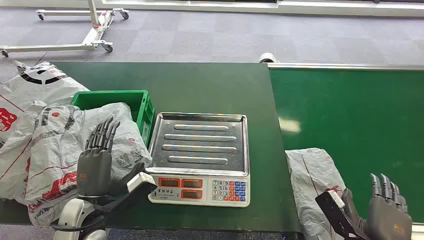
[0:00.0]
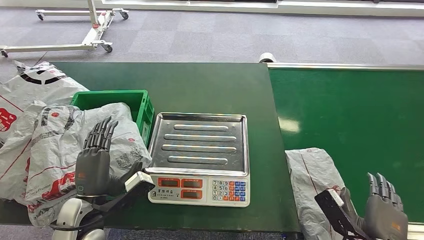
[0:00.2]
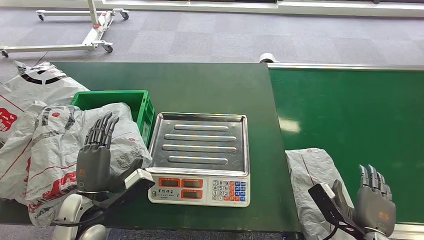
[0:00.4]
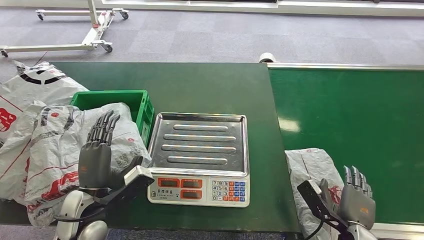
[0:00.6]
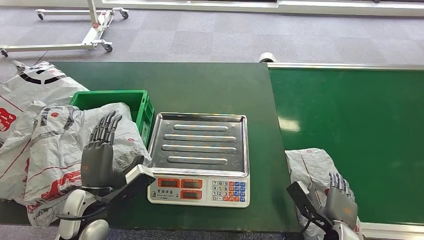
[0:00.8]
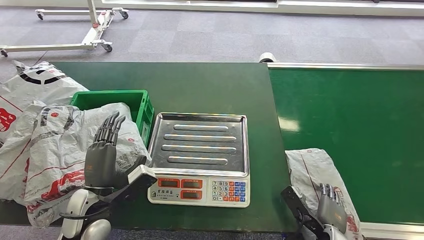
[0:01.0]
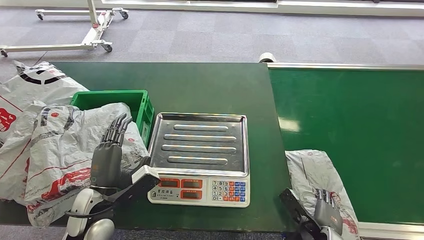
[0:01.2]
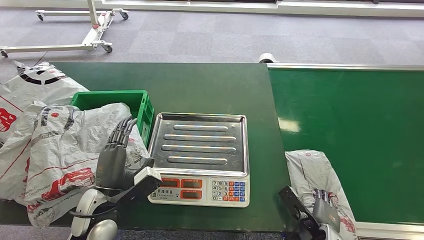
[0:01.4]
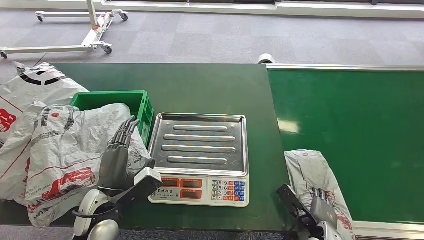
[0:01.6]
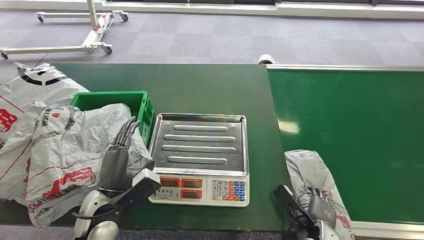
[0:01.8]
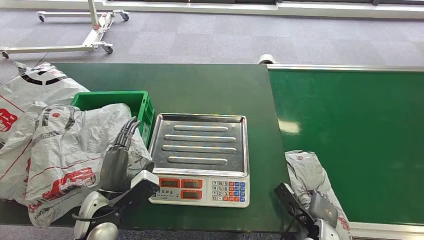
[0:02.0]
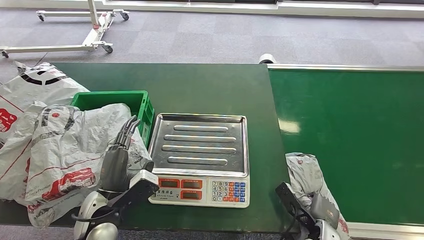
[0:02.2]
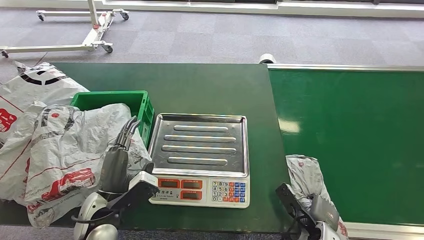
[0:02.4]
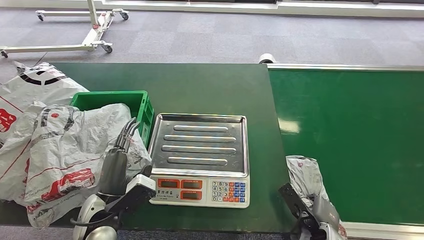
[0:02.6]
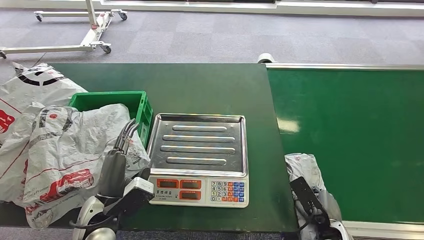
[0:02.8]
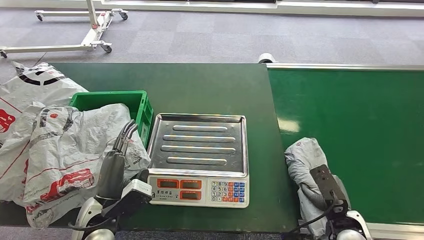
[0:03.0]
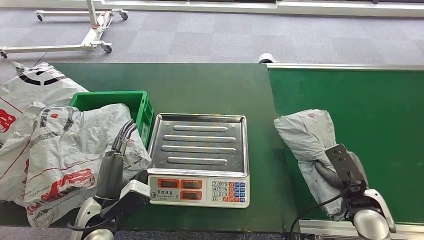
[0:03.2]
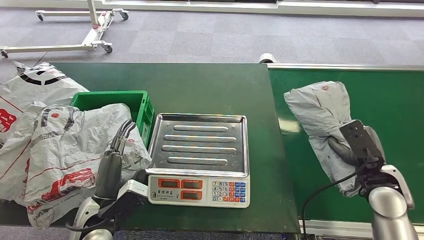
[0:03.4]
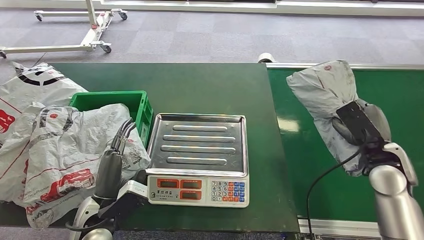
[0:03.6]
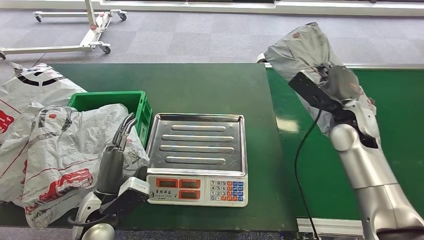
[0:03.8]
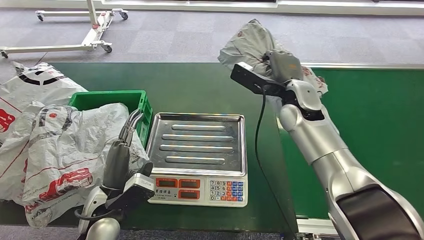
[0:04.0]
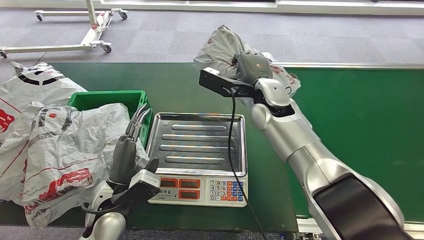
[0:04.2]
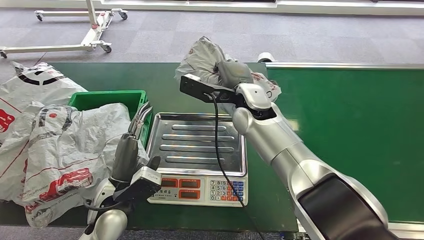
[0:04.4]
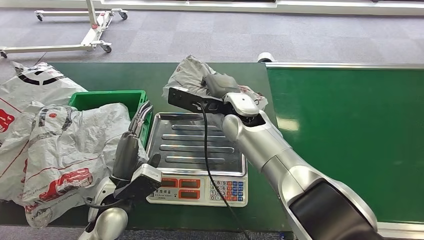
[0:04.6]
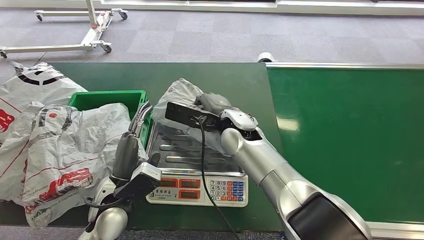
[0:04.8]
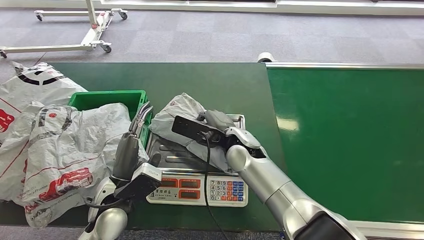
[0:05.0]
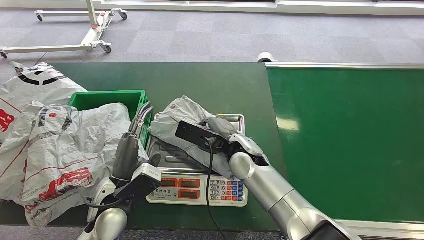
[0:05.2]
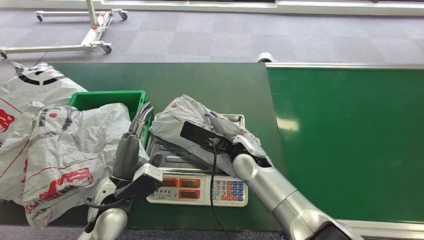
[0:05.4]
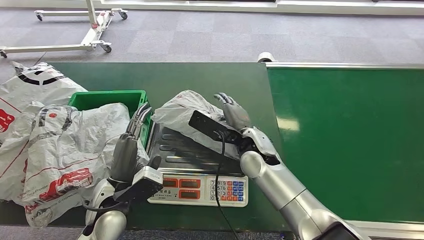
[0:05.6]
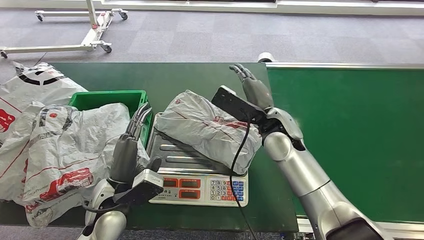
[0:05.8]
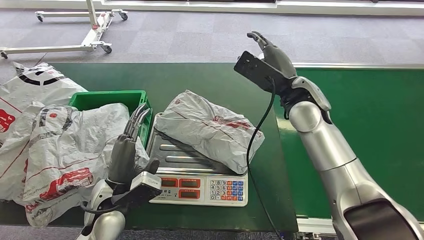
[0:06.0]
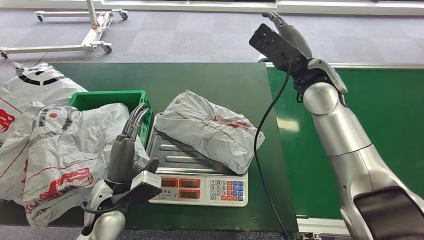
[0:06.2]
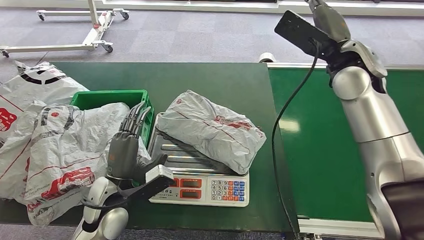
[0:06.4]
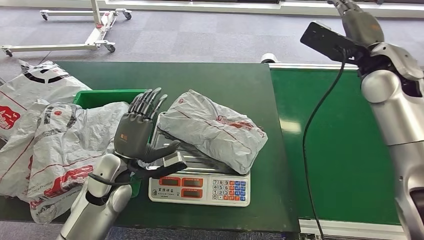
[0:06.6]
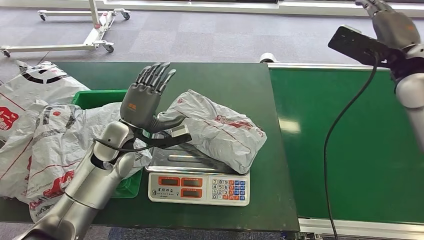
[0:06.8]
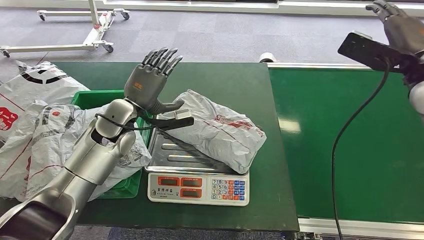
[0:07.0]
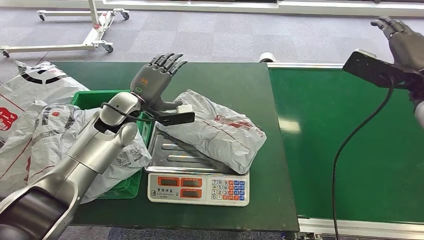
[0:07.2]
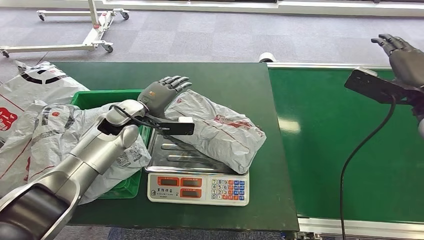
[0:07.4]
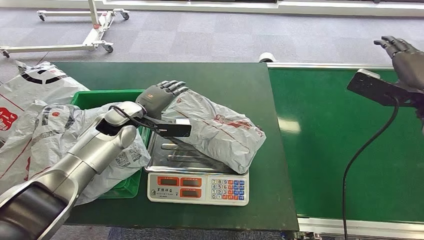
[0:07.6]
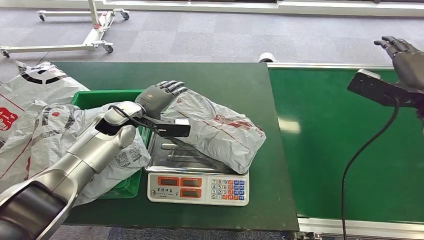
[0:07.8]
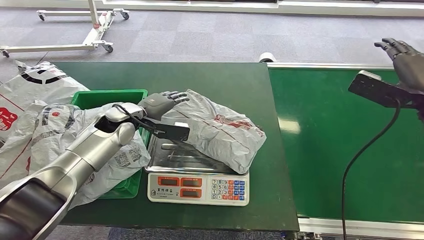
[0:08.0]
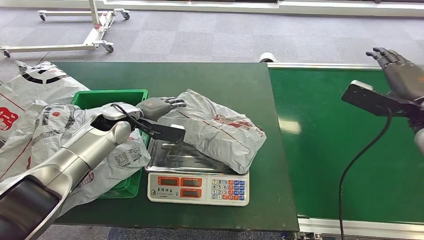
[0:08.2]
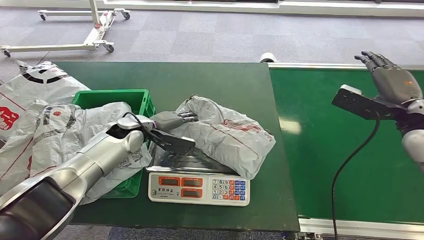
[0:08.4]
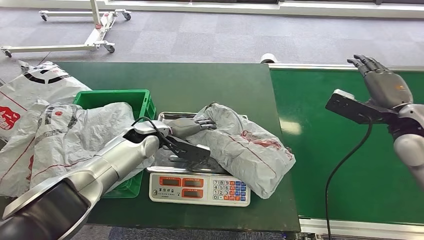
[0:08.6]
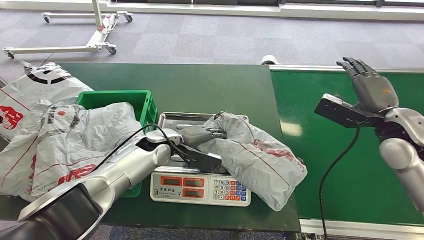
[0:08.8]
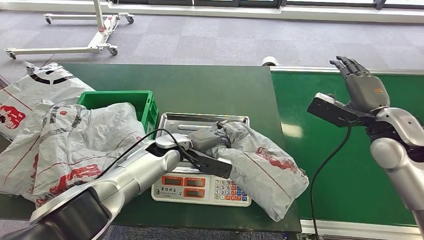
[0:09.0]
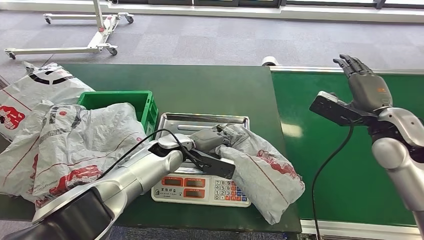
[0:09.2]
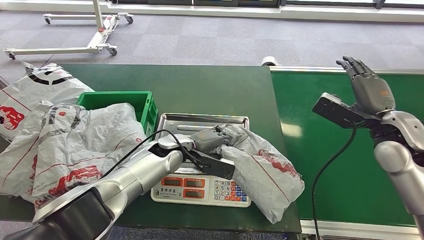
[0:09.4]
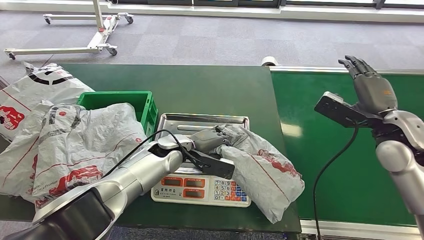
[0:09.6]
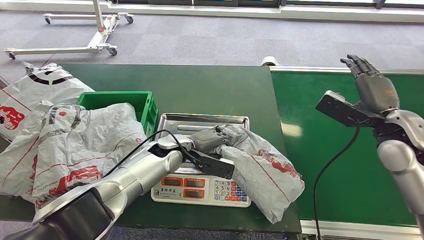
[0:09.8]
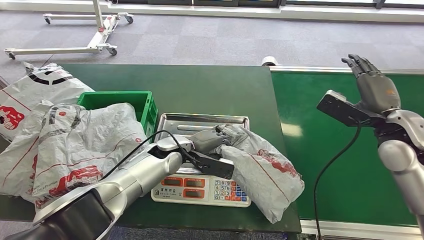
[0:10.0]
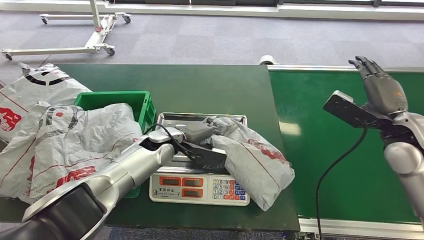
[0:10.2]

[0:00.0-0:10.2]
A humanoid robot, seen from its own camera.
Step, 0:00.0 to 0:03.2: Pick up the package from the conveyor belt.
Step, 0:03.6 to 0:05.8: Place the package onto the inbound machine.
0:01.4 to 0:03.0: The right hand is displaced upward by some 5 cm.
0:04.4 to 0:05.8: The right hand goes roughly 5 cm to the right.
0:08.8 to 0:10.2: The hands make only small movements.

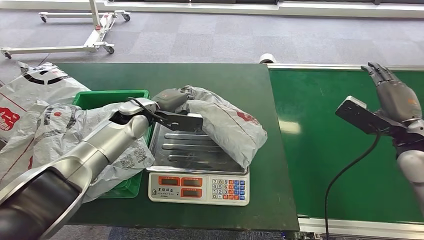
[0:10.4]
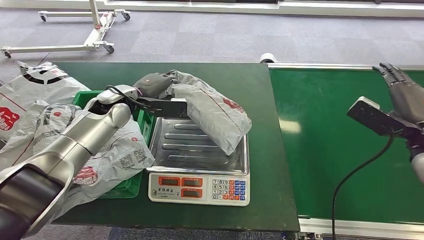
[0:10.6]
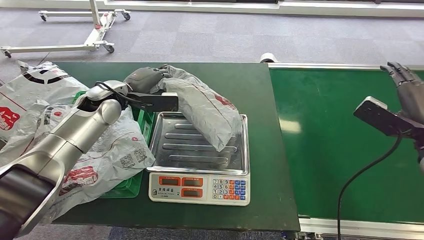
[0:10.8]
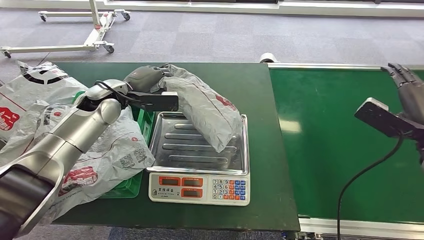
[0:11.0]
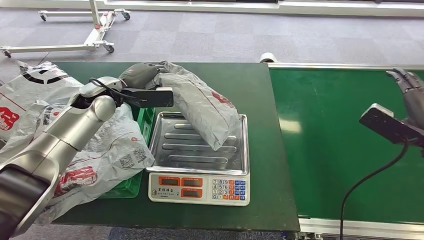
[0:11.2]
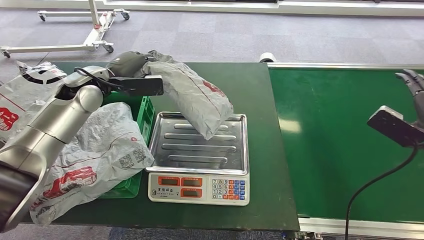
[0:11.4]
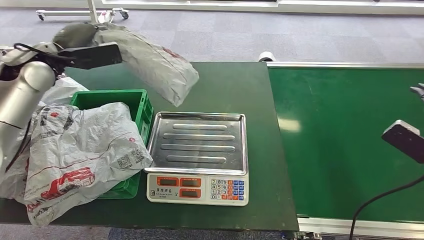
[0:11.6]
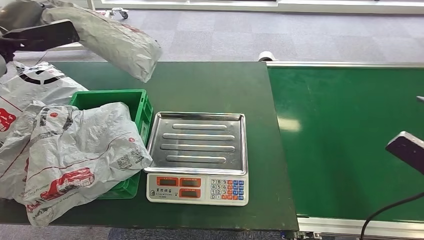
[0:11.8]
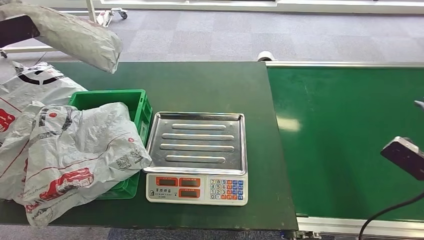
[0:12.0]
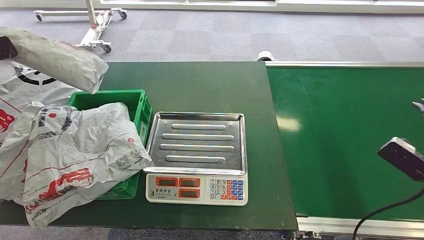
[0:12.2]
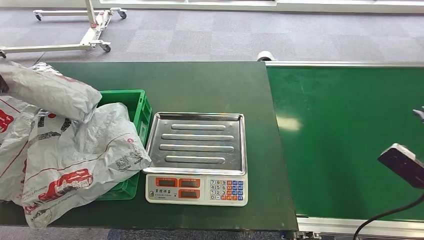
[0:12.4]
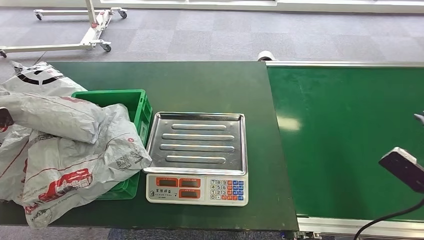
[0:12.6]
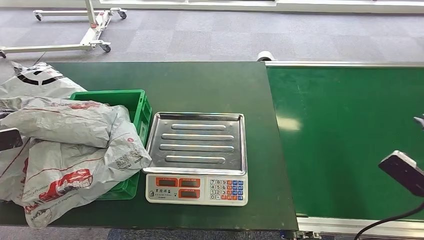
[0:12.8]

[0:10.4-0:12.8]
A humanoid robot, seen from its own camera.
Step, 0:11.0 to 0:12.8: Place the package into the parcel locker.

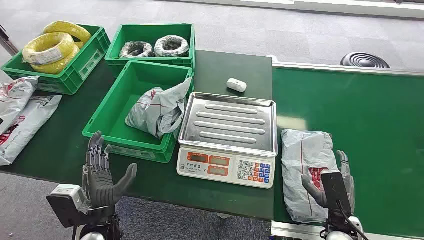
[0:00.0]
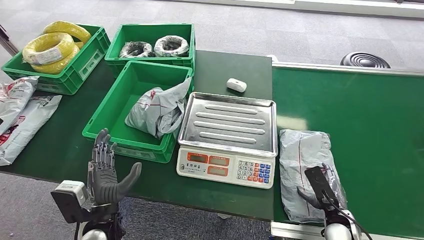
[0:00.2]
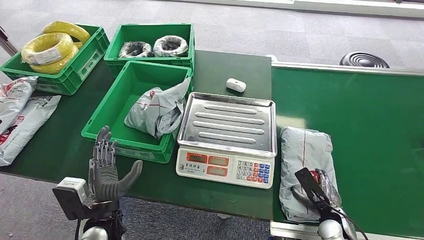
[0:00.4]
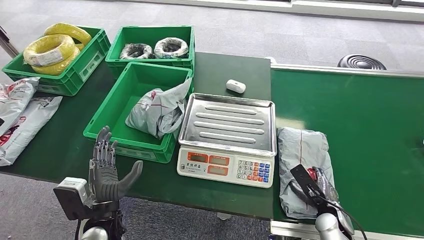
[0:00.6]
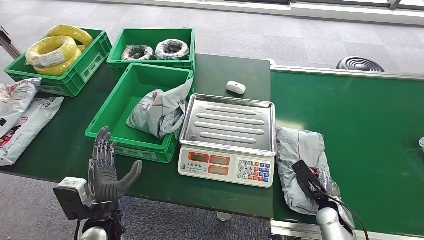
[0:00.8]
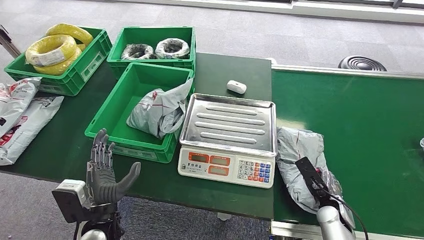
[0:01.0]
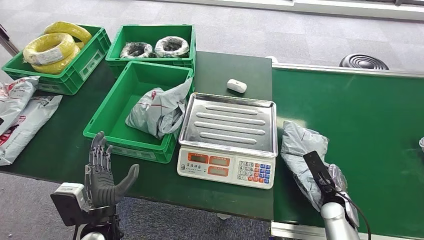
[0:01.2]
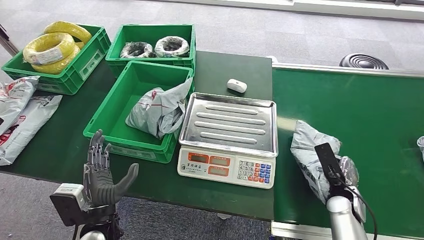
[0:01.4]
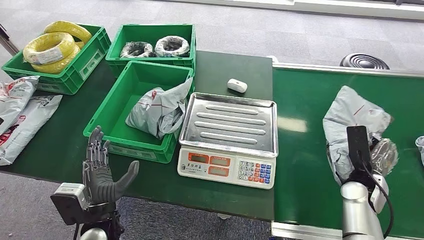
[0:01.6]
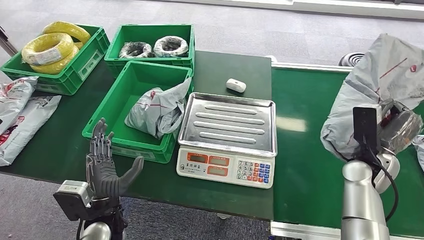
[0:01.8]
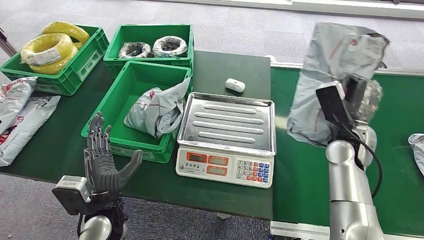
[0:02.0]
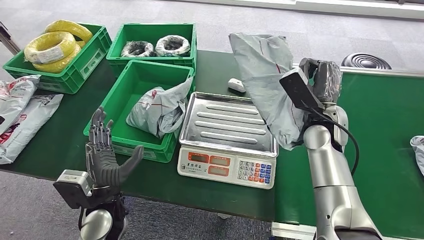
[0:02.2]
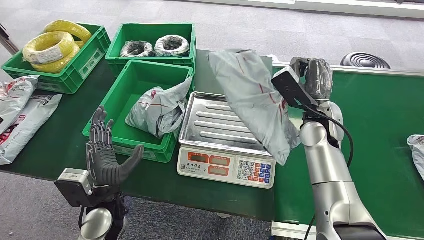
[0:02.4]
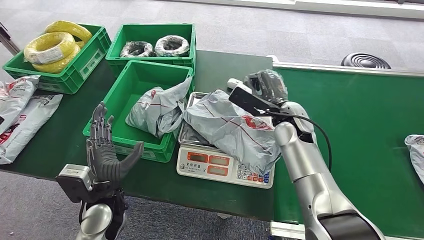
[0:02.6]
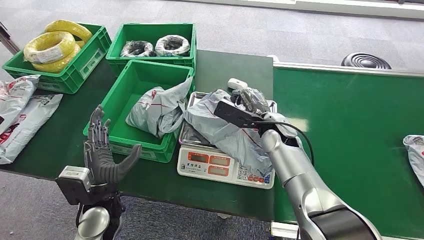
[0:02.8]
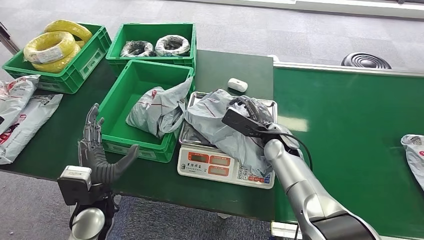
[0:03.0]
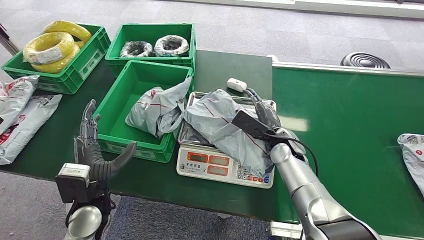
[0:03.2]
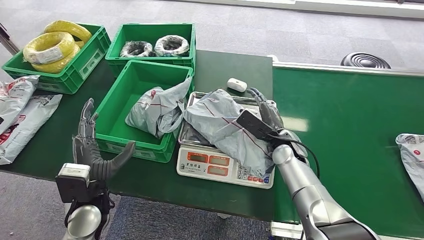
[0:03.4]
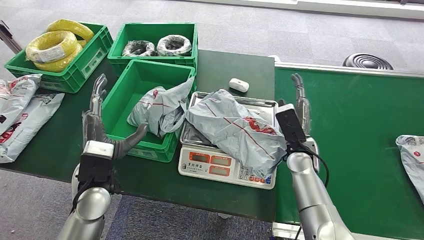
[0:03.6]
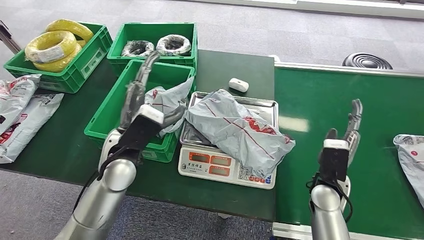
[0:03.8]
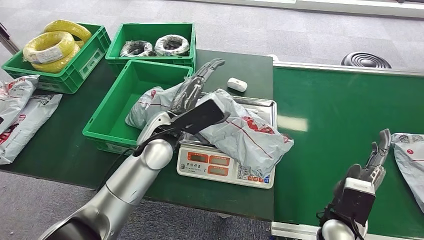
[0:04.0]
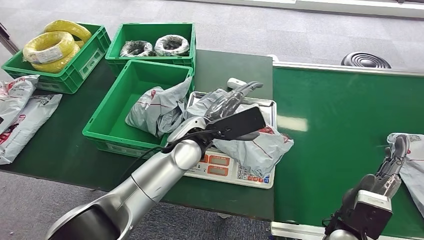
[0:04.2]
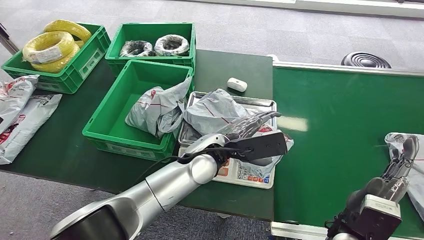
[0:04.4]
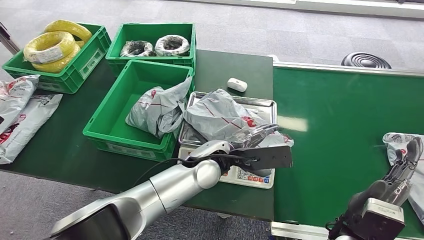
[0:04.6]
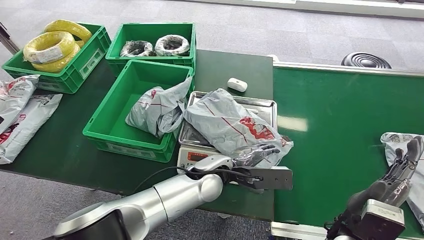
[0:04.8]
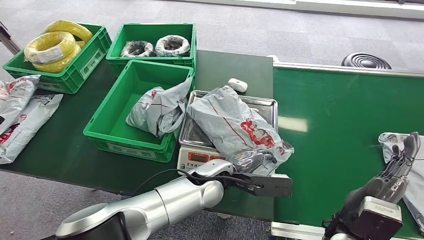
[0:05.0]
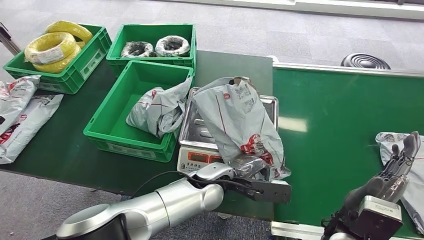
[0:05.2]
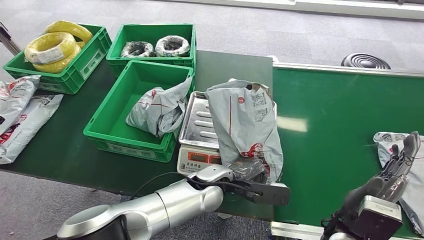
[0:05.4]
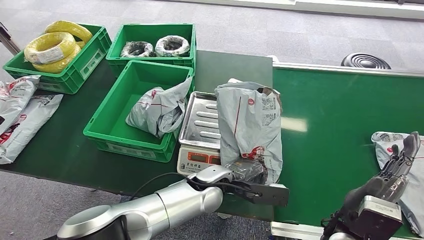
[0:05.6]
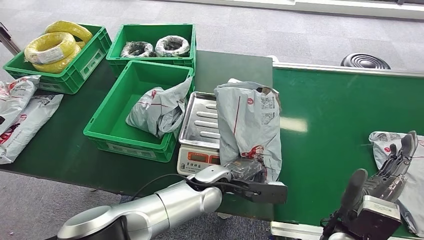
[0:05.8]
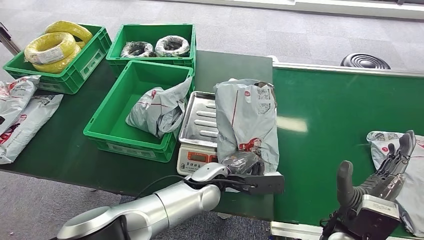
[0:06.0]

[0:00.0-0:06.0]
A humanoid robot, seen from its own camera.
Step, 0:00.0 to 0:01.4: Pick up the package from the conveyor belt.
Step, 0:01.8 to 0:02.8: Place the package onto the inbound machine.
